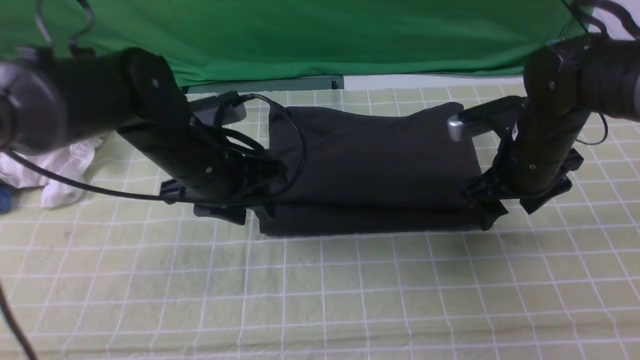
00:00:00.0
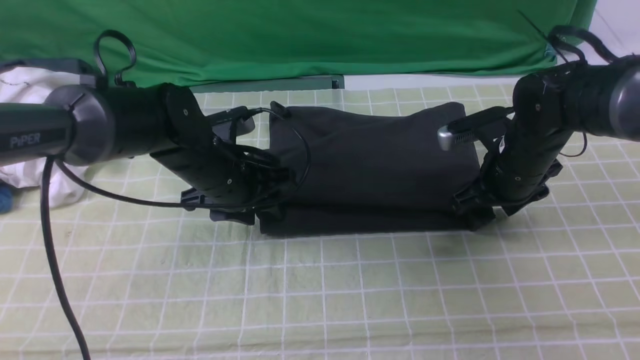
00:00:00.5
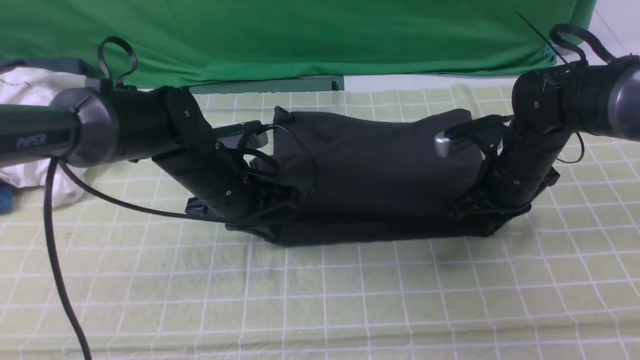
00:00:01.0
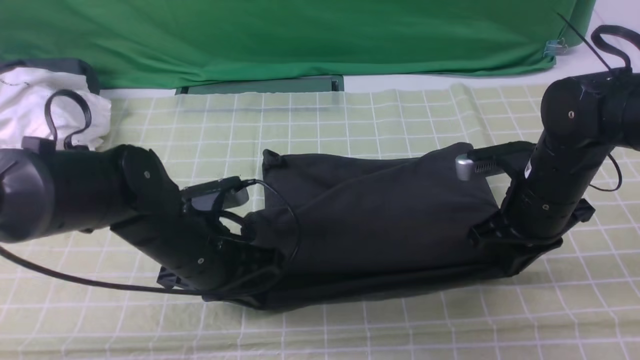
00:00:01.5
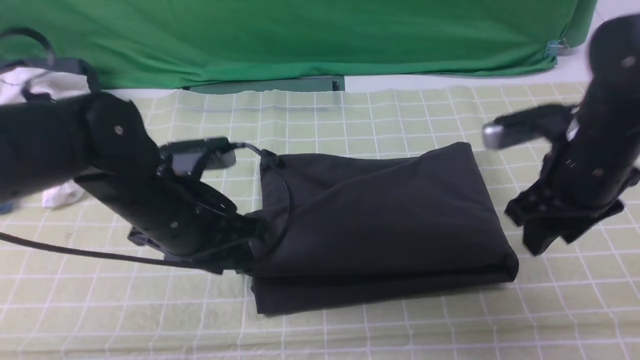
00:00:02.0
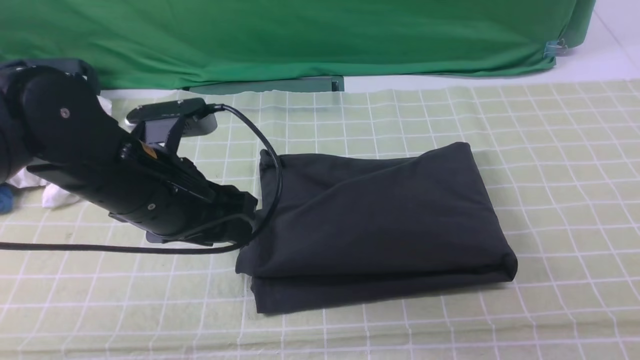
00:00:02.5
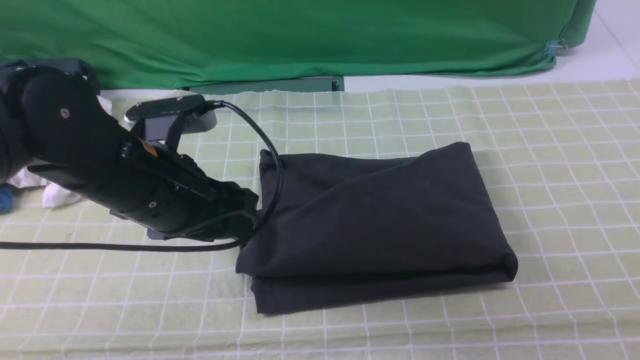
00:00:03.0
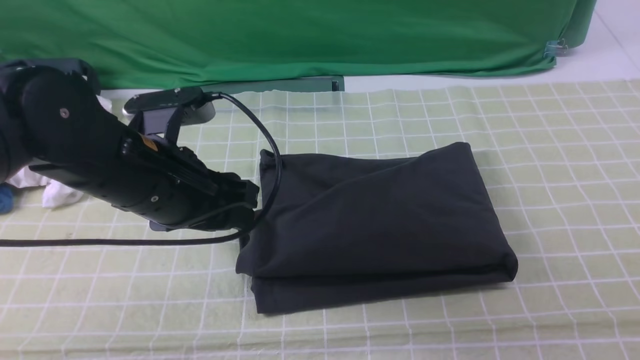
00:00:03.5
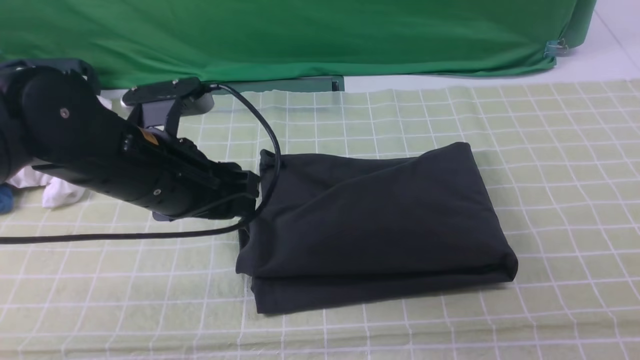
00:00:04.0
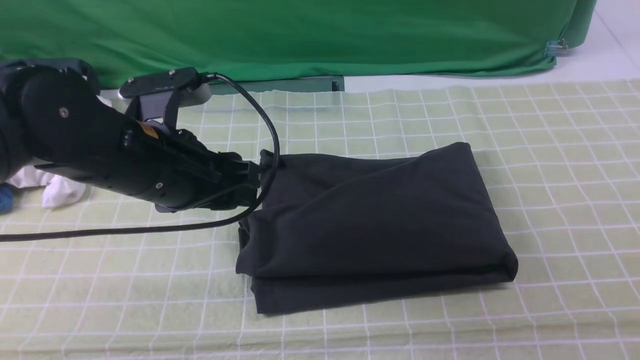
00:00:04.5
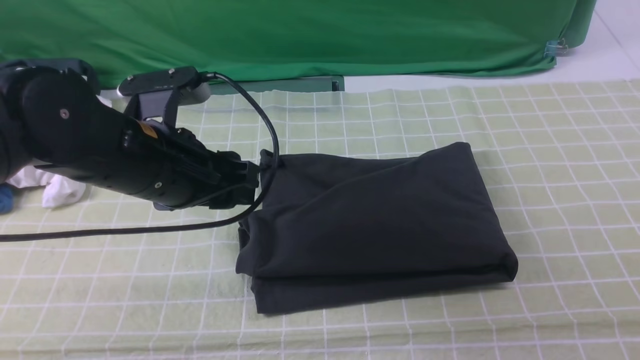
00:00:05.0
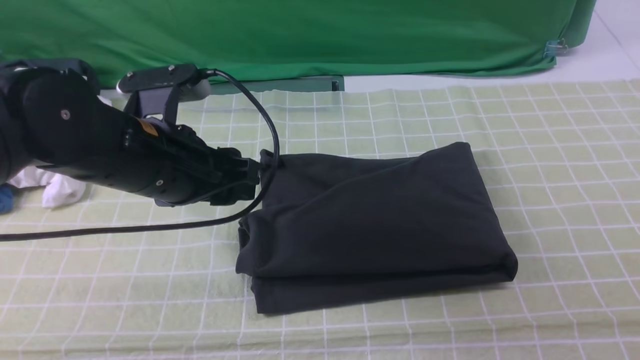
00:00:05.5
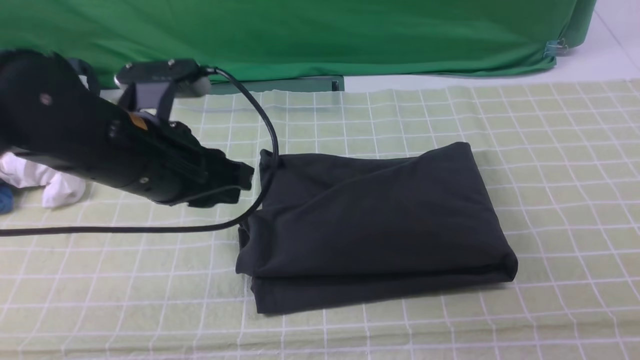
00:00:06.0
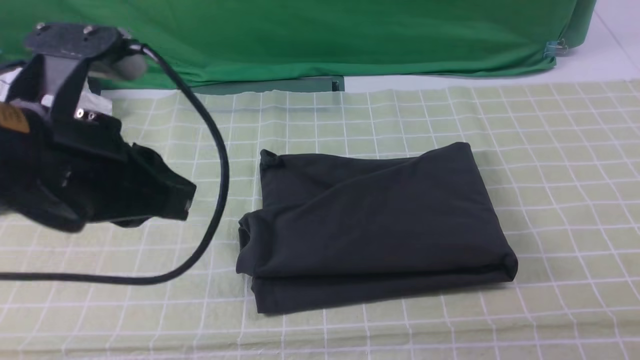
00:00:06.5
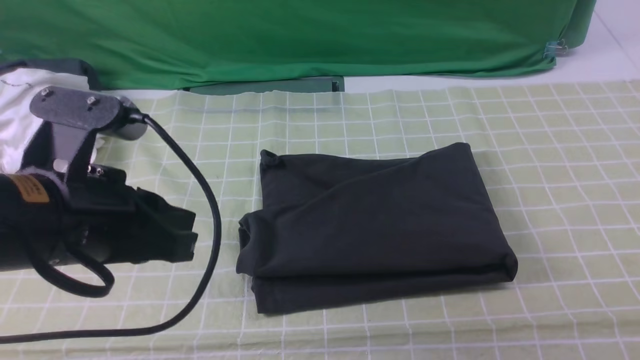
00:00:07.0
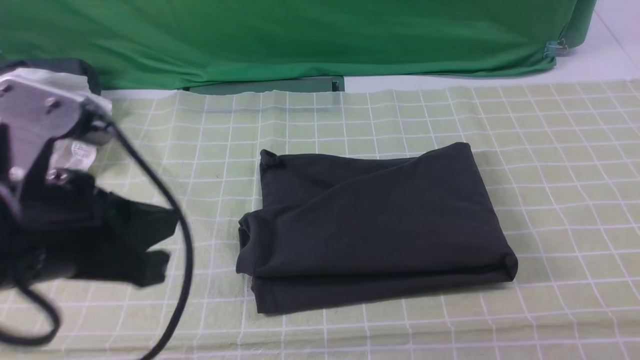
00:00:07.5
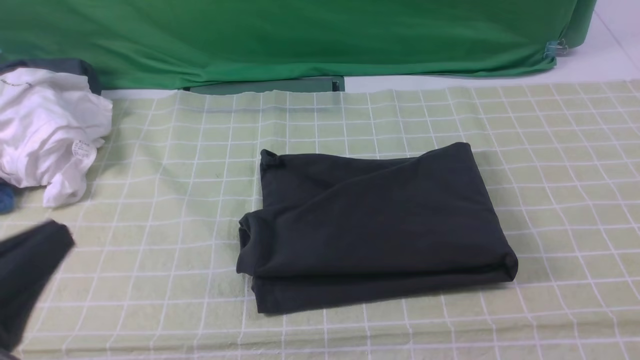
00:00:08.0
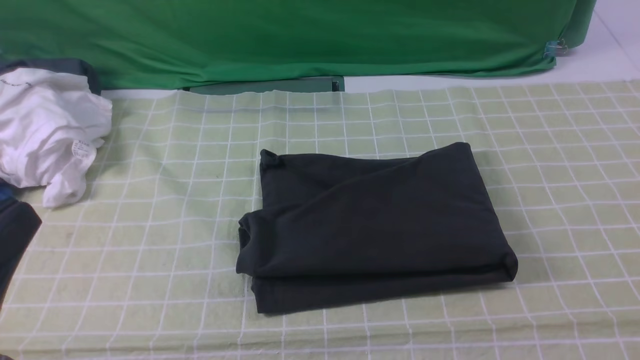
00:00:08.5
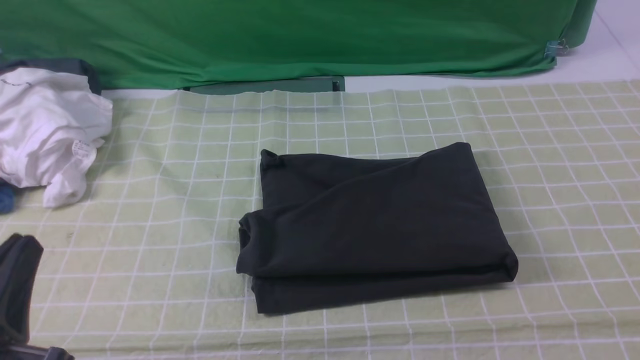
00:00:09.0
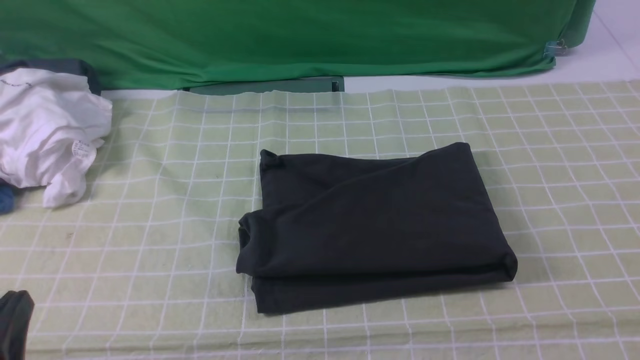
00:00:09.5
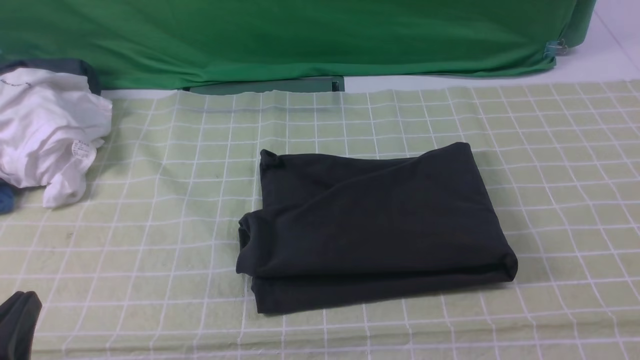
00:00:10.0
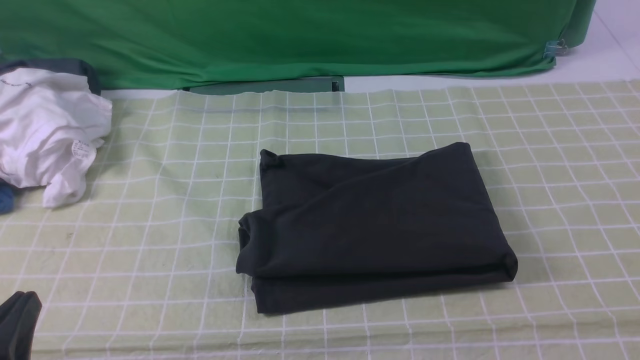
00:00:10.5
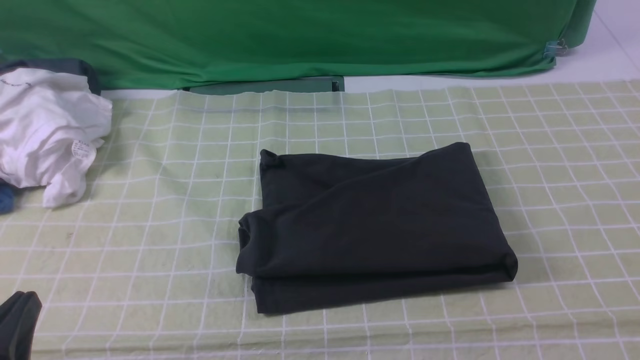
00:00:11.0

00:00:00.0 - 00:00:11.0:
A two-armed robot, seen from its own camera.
00:00:00.0 - 00:00:02.0: The left gripper is displaced backward by roughly 5 cm, and closes and opens again, while the right gripper heads upward and backward, covering about 10 cm, and closes.
00:00:02.0 - 00:00:03.5: The right gripper travels backward by some 20 cm, and closes.
00:00:03.5 - 00:00:05.5: The right gripper is displaced downward by approximately 10 cm.
00:00:05.5 - 00:00:07.5: The left gripper shifts approximately 15 cm backward, and closes its fingers.
00:00:07.5 - 00:00:09.0: The left gripper moves downward, backward and to the left, approximately 10 cm.
00:00:09.0 - 00:00:11.0: There are only small adjustments of the grippers.
